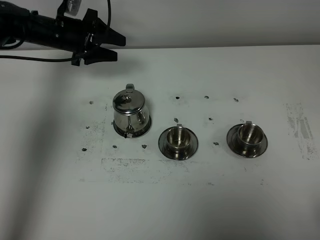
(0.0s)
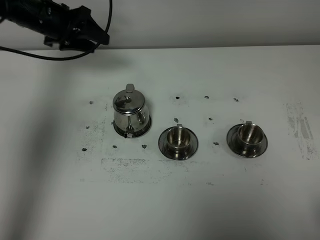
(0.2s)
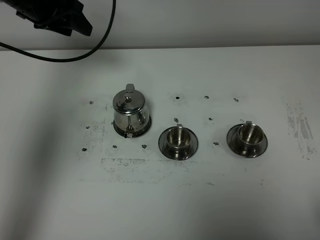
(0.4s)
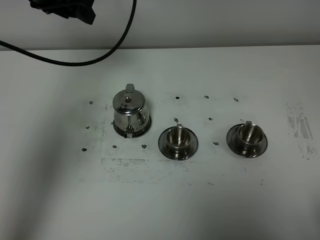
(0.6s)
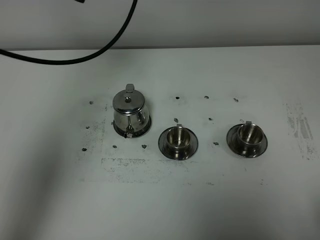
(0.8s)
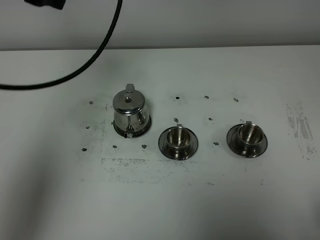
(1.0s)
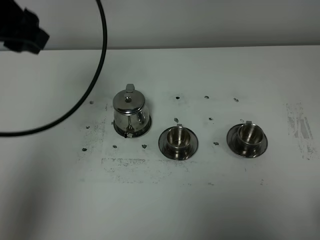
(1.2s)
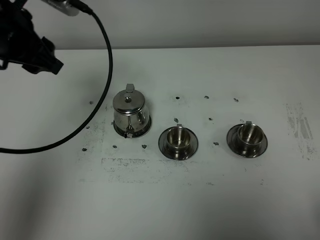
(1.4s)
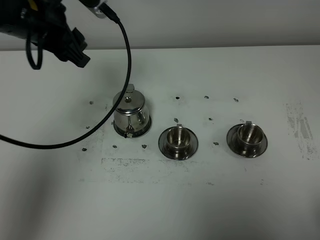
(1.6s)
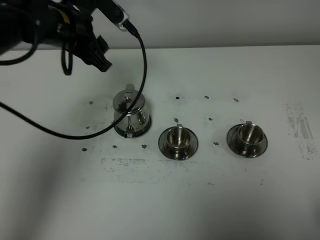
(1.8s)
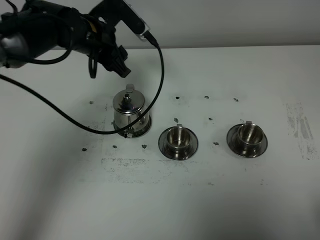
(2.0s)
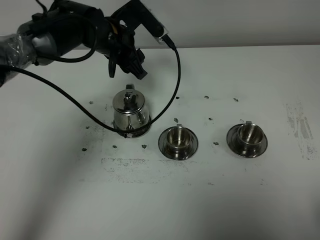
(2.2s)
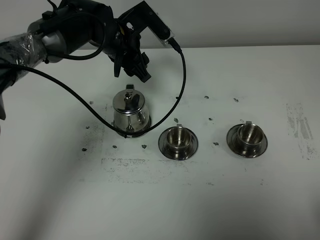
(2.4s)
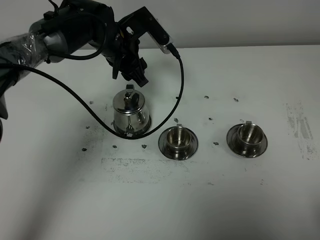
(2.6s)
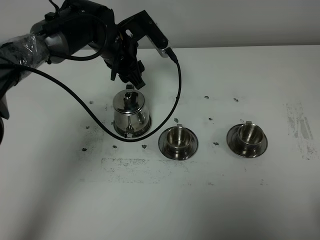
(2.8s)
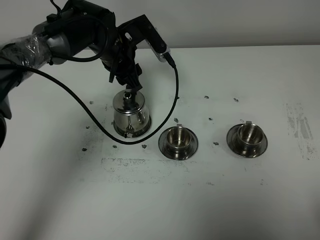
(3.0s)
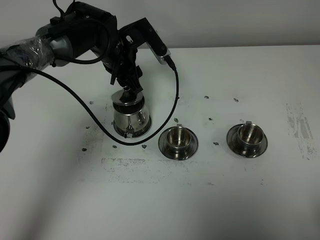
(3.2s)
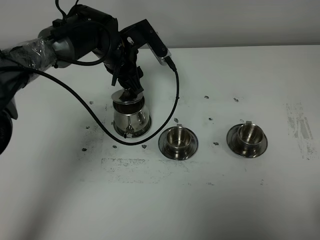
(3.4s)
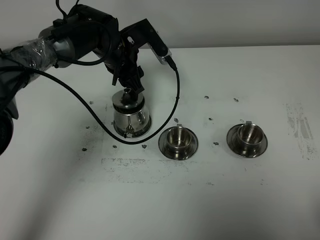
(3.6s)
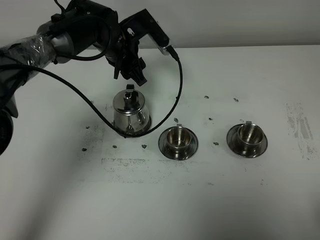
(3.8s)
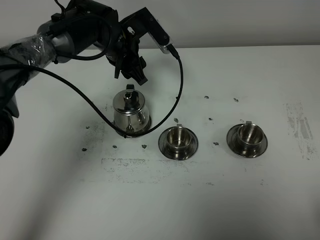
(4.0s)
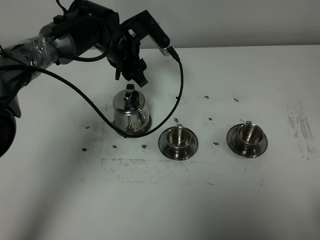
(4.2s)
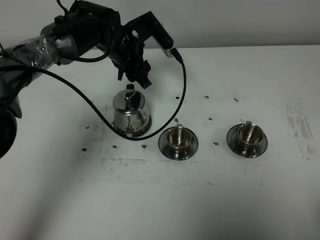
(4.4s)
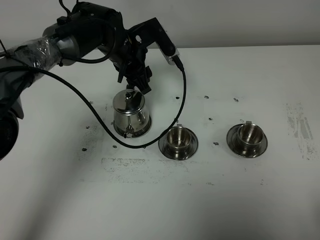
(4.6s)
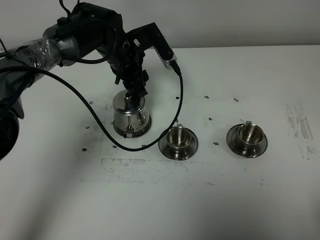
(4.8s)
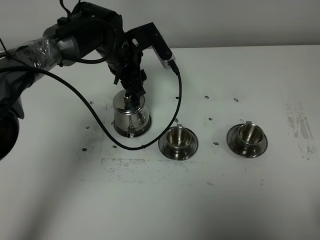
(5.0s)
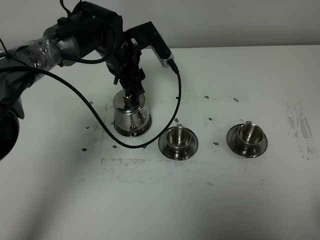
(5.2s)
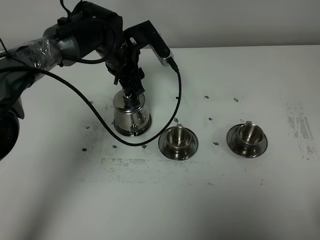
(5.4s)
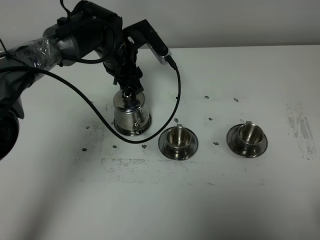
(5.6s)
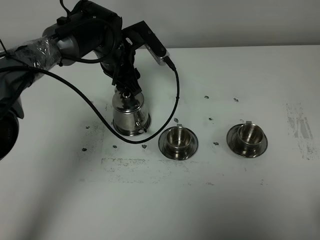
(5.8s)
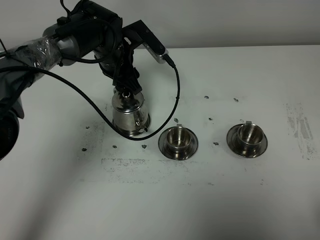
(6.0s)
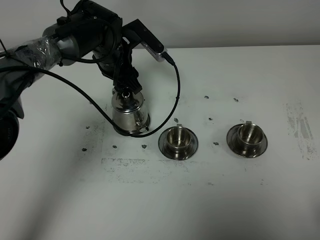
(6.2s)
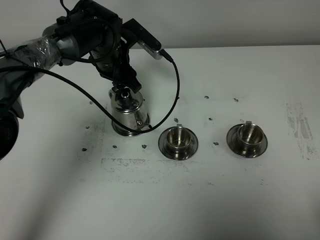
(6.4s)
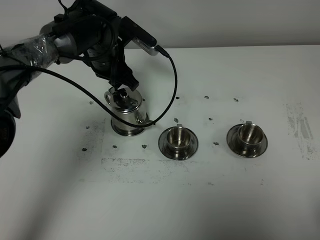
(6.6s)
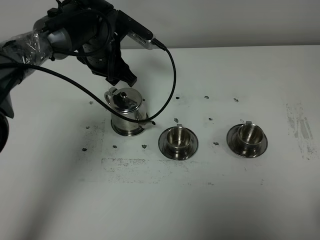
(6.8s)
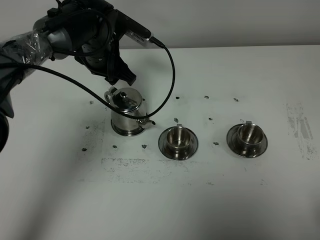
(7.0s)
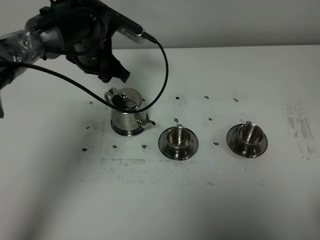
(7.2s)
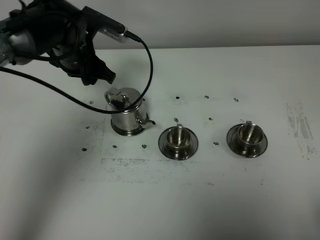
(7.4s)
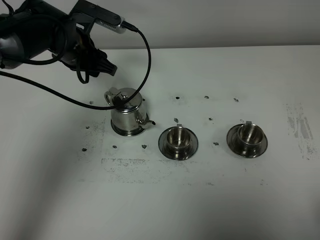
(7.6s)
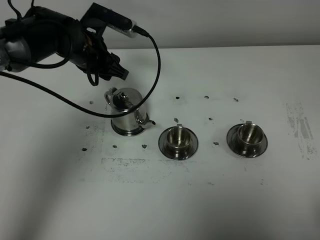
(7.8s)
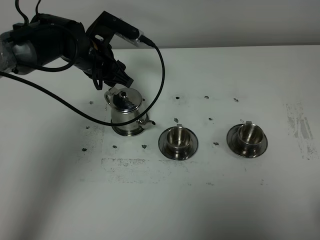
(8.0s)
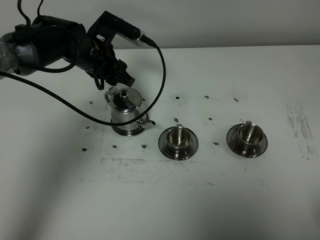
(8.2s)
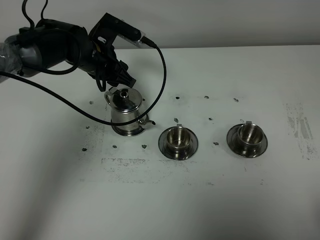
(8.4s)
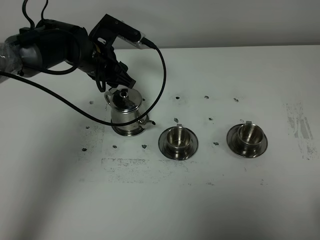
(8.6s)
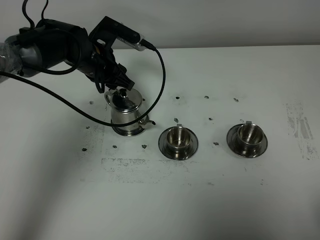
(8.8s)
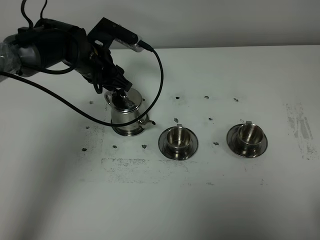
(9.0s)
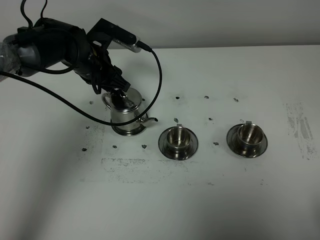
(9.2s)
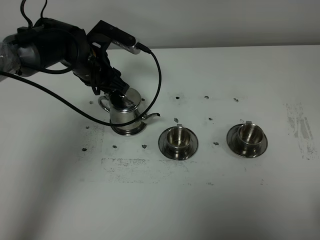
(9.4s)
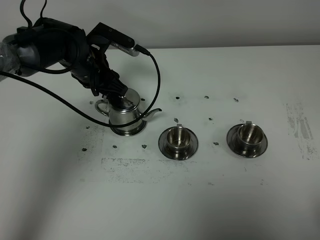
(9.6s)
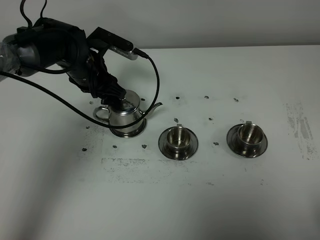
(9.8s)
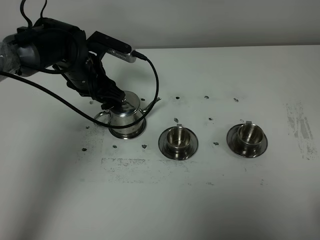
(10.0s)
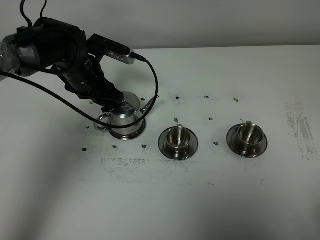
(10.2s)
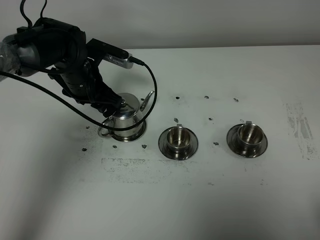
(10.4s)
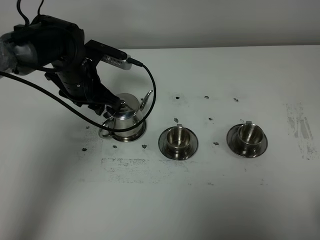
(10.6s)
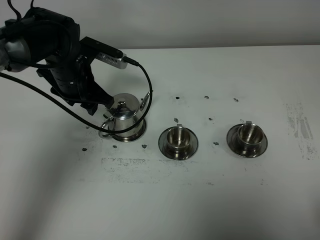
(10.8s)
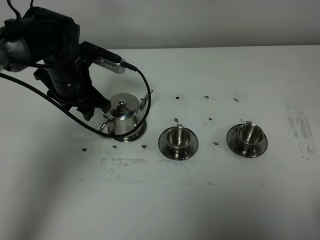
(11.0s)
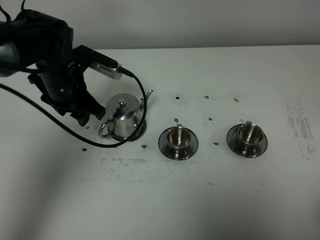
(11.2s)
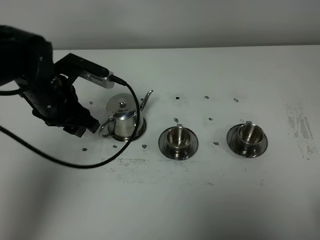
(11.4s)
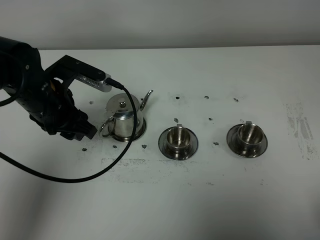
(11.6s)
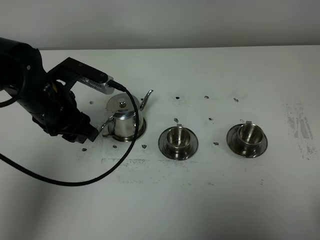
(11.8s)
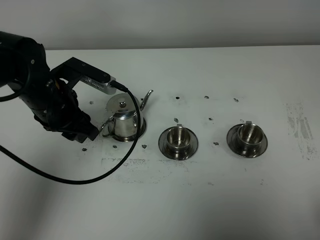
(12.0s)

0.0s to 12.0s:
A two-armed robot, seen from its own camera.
Task of the whole recording: grasp the stainless steel teapot and pour the tea into the two stainless steel teacups one by one, put the stainless steel teapot back in its original place.
0.0s to 1.6s: The left gripper is displaced backward and upward by some 20 cm.
1.6s to 3.0s: The left gripper travels downward, forward and to the right by about 15 cm.
3.0s to 6.0s: The grippers stay close to where they were, moving slightly.
6.0s to 7.6s: The left gripper goes approximately 5 cm to the left.
7.6s to 9.0s: There are only small adjustments of the grippers.
9.0s to 10.4s: The grippers move only a little.
10.4s to 12.0s: The left gripper moves backward, some 10 cm.

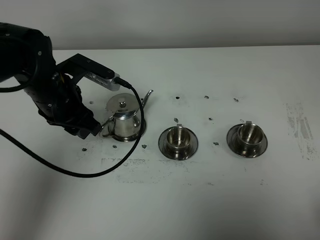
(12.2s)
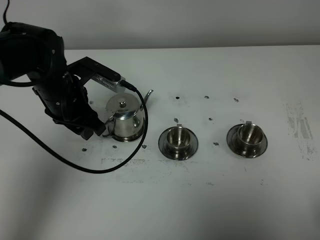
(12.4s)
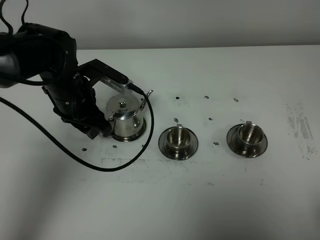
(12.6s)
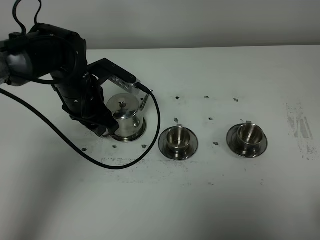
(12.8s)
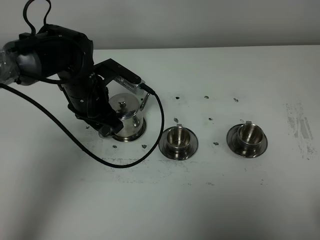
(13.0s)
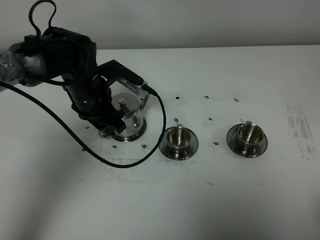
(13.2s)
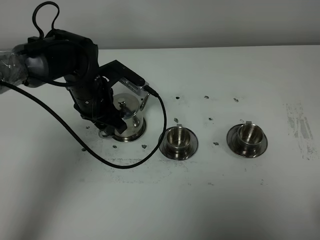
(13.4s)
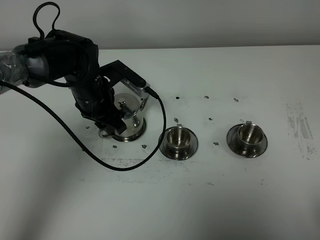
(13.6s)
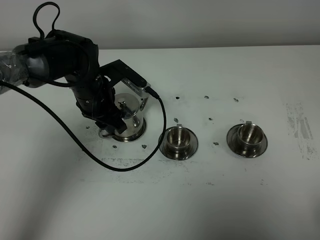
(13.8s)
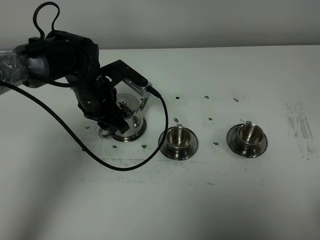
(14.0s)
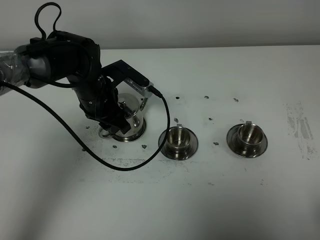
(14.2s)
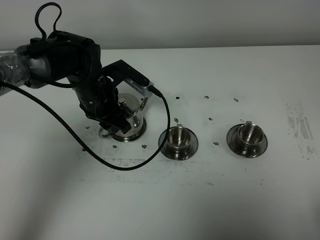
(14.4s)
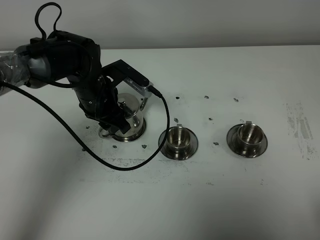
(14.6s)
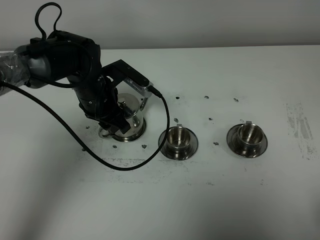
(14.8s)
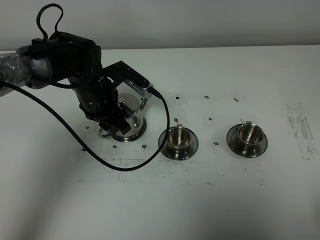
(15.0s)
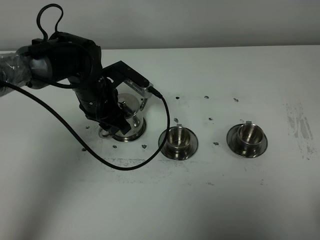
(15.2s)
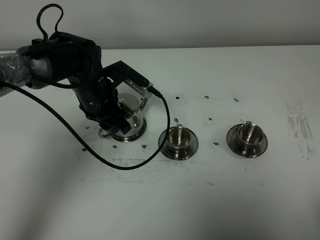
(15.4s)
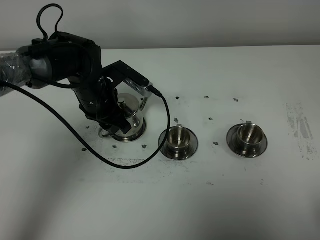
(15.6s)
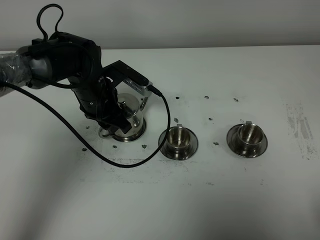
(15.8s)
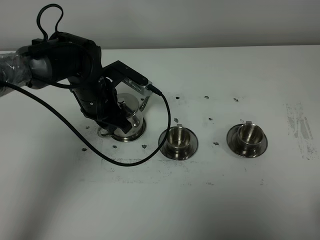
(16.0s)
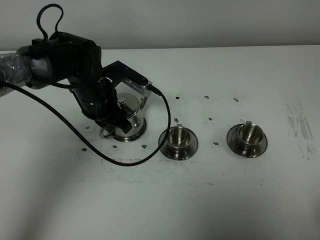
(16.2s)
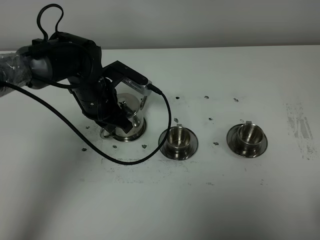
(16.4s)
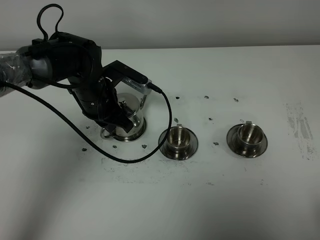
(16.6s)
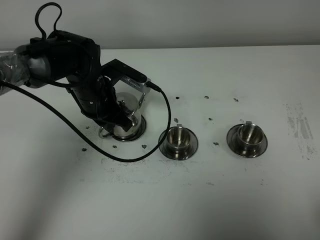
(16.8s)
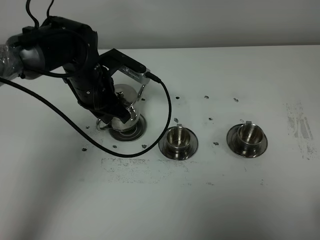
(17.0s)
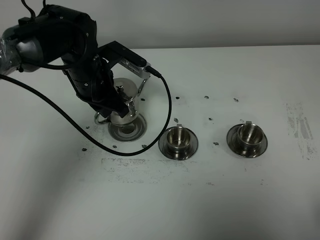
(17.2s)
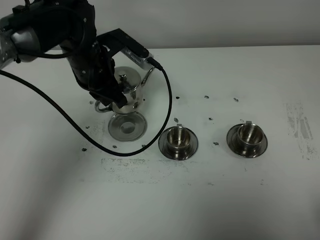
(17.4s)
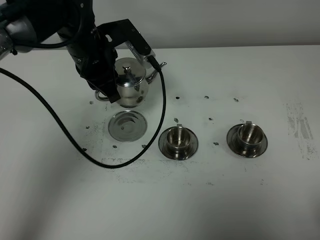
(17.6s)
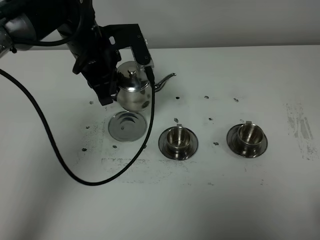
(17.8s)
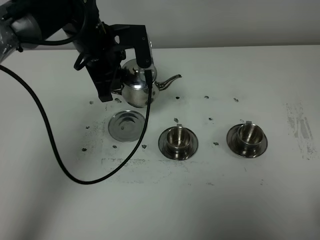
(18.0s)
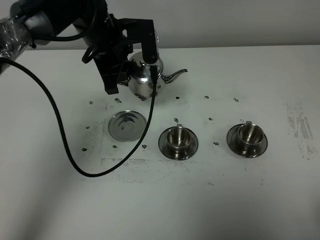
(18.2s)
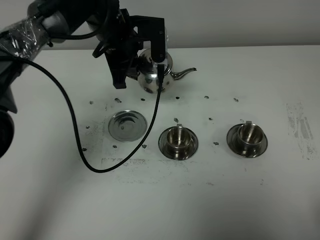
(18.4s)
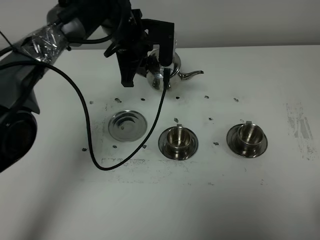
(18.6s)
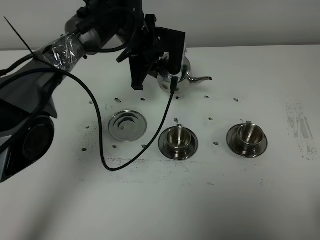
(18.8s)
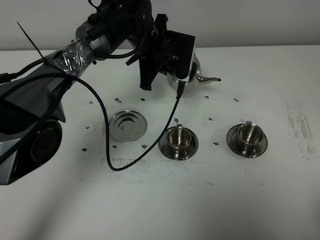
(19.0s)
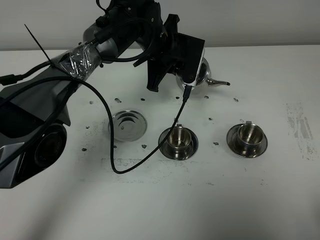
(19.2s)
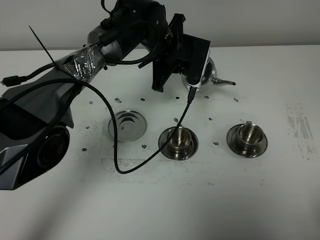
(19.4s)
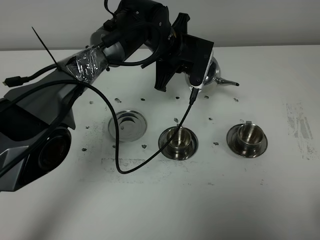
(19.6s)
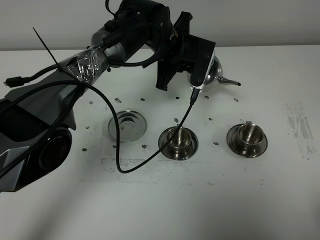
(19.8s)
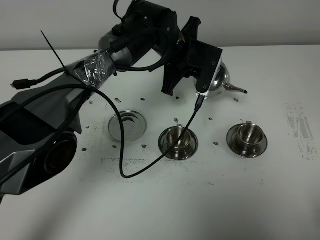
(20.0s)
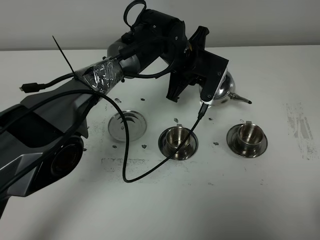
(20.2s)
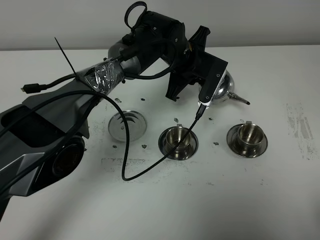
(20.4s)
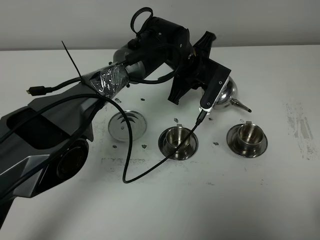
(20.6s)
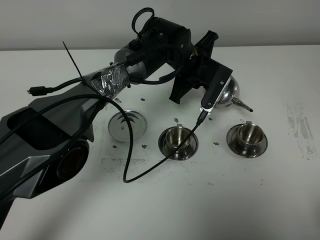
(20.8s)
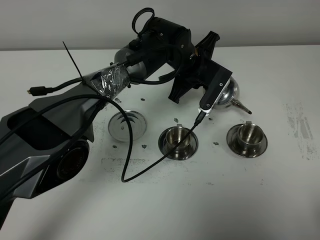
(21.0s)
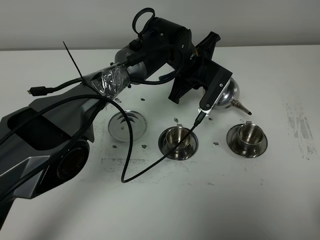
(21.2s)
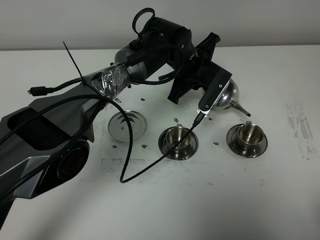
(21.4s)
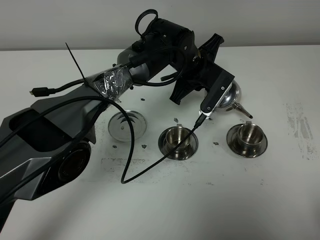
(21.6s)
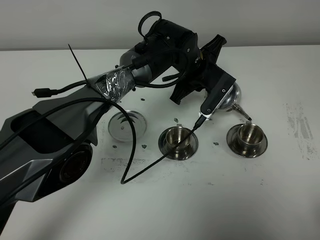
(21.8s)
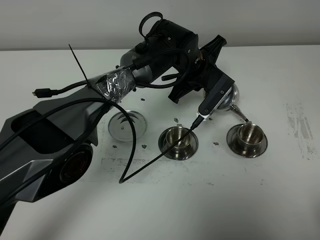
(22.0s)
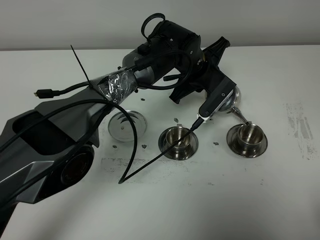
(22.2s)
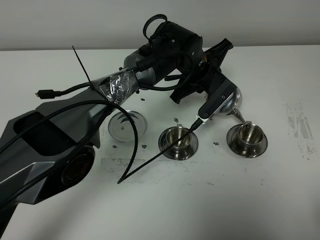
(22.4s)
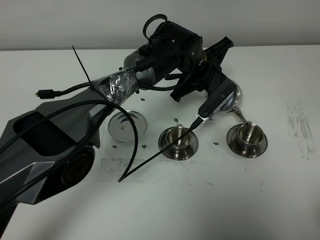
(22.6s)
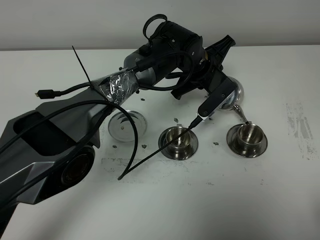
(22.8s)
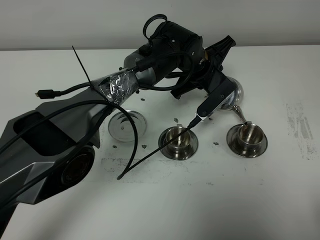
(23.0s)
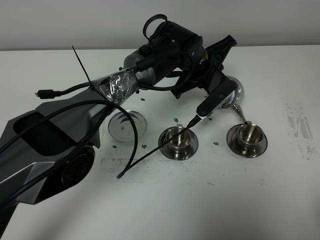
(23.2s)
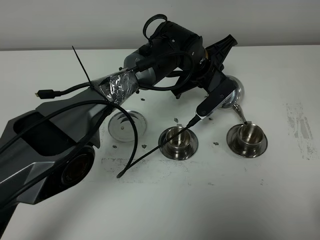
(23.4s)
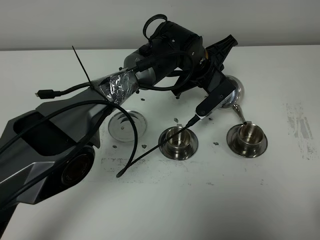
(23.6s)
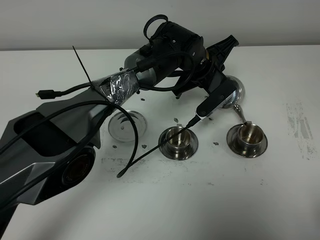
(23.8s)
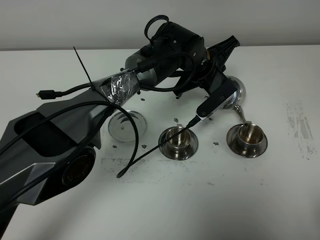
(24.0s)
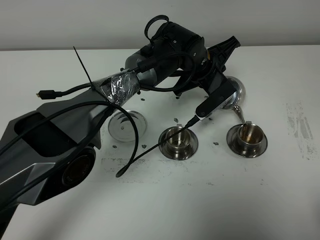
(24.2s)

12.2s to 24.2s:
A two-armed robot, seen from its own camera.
Task of the whole recording: grasp the stainless steel teapot and pour the tea into the two stainless steel teacups one by one, put the stainless steel teapot back in its original place.
Step, 12.2s to 16.8s: Pick up the teapot with the left gripper.
12.2s to 13.8s: The left gripper shifts approximately 5 cm downward.
13.8s to 15.2s: Both grippers stay put.
15.2s to 16.6s: The left gripper closes.
16.6s to 18.2s: The left gripper goes some 10 cm upward.
18.2s to 19.8s: The left gripper goes about 10 cm to the right.
19.8s to 21.2s: The left gripper shifts by about 5 cm.
21.2s to 22.6s: The grippers move only a little.
22.6s to 24.2s: The grippers stay close to where they were, moving slightly.
